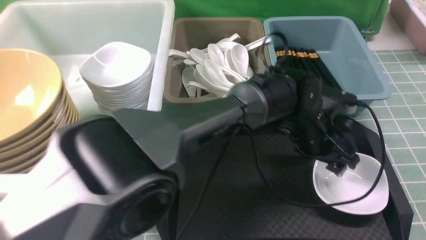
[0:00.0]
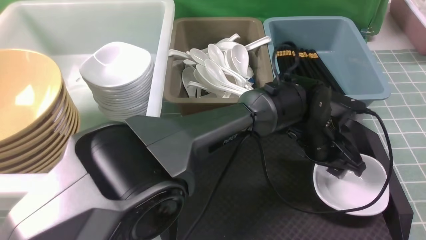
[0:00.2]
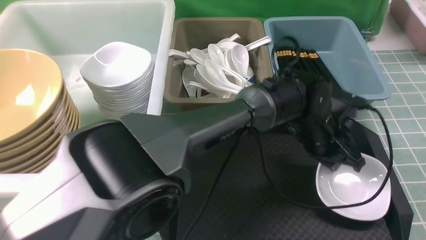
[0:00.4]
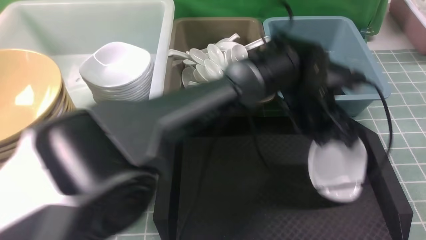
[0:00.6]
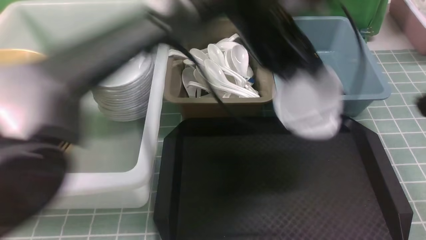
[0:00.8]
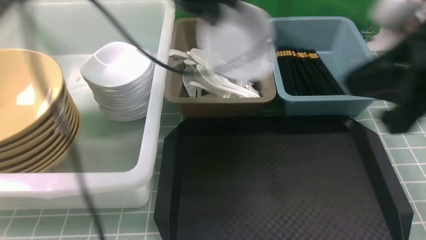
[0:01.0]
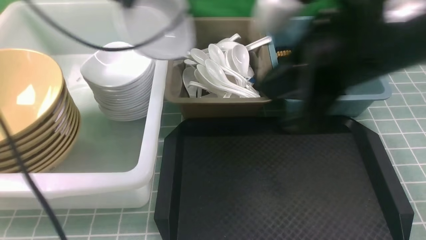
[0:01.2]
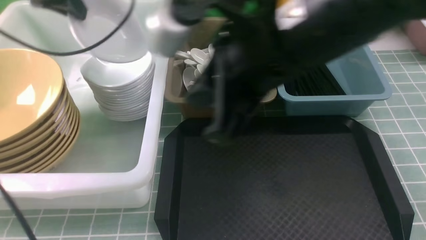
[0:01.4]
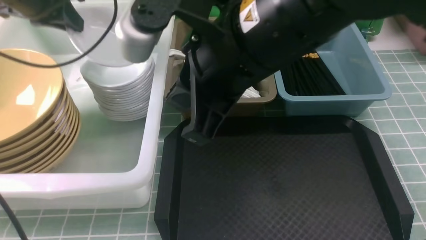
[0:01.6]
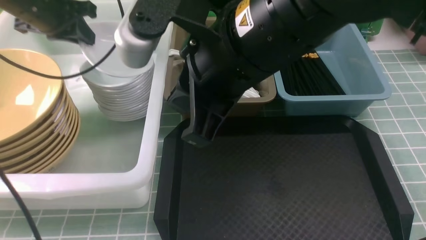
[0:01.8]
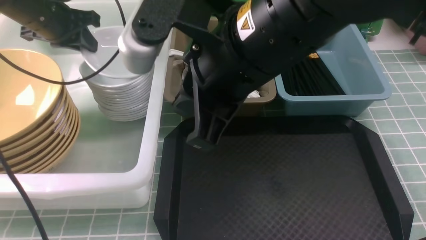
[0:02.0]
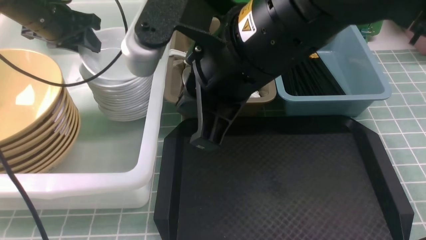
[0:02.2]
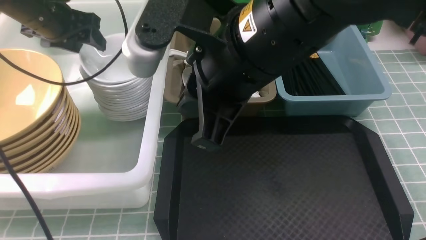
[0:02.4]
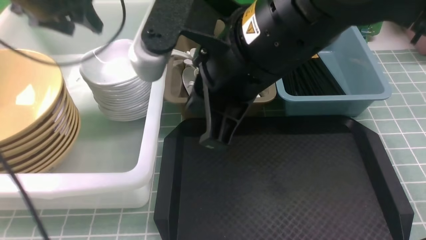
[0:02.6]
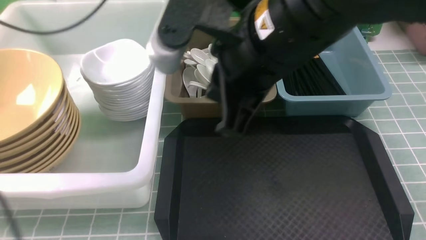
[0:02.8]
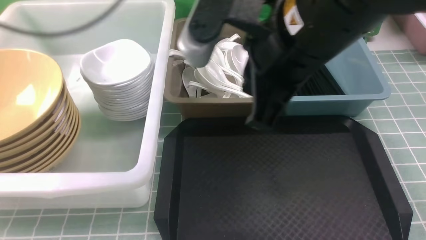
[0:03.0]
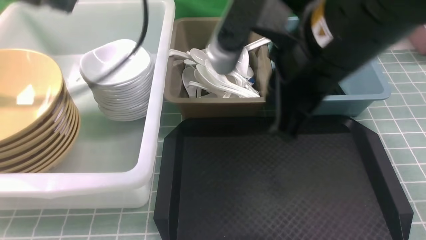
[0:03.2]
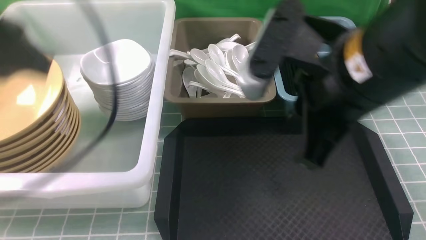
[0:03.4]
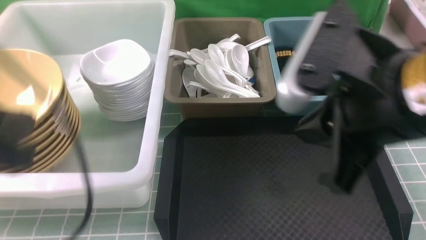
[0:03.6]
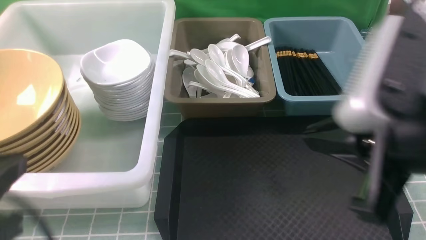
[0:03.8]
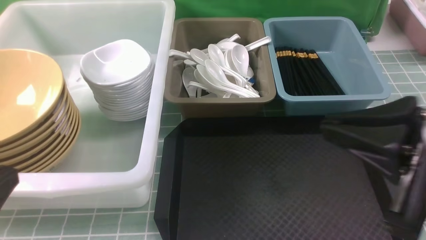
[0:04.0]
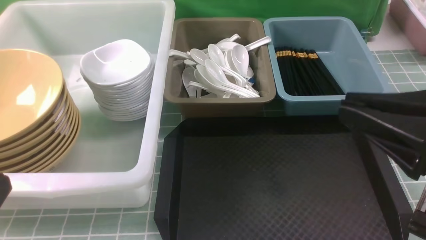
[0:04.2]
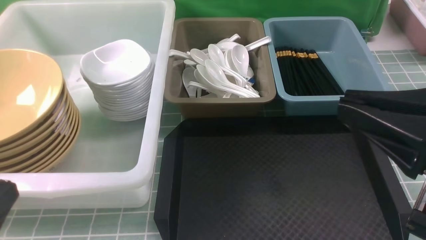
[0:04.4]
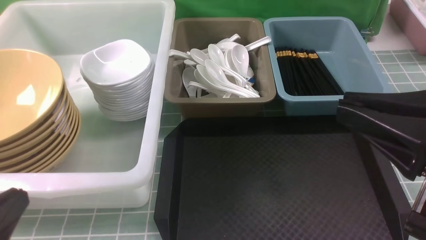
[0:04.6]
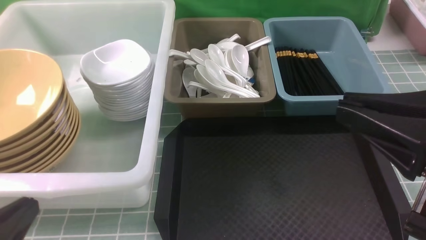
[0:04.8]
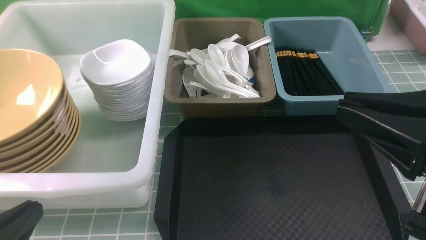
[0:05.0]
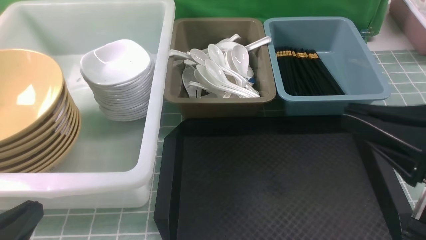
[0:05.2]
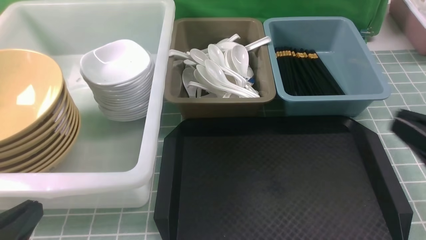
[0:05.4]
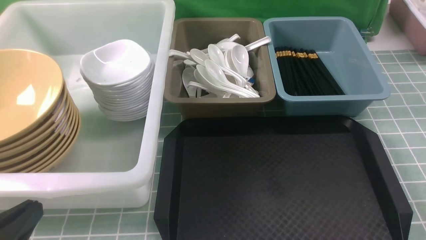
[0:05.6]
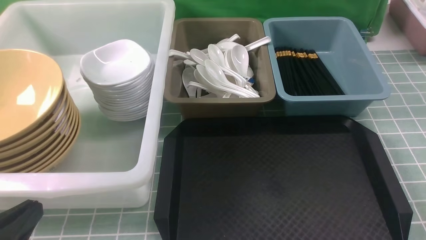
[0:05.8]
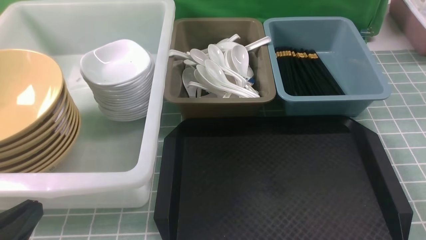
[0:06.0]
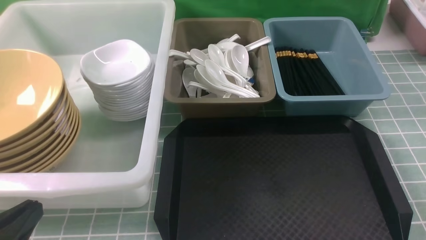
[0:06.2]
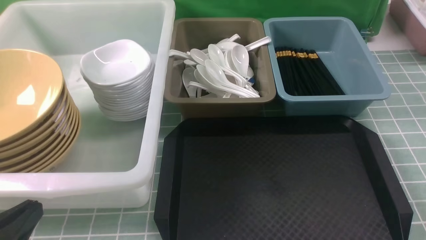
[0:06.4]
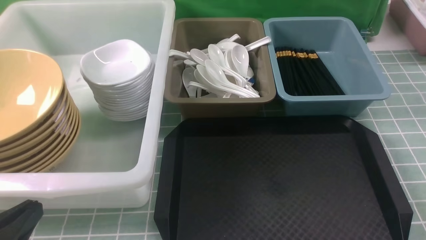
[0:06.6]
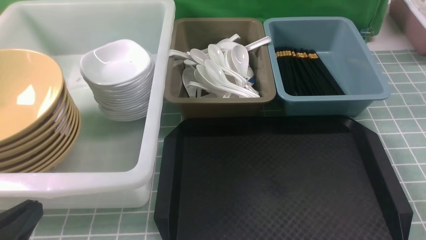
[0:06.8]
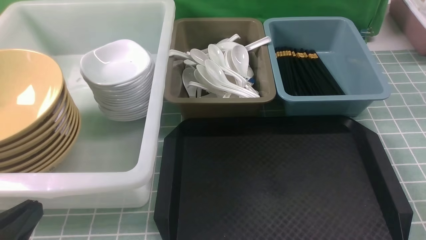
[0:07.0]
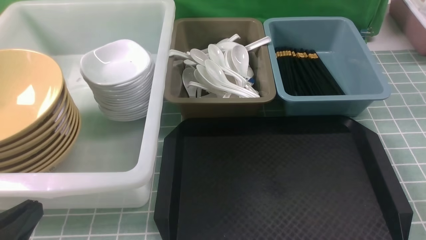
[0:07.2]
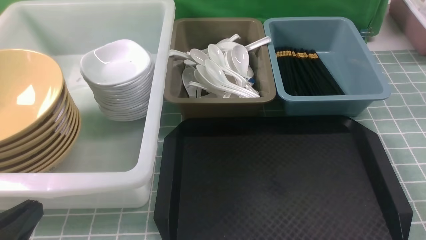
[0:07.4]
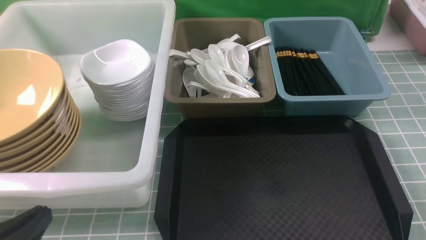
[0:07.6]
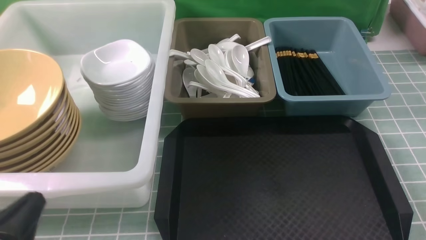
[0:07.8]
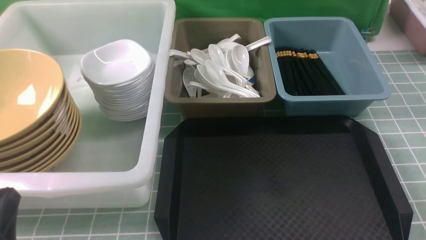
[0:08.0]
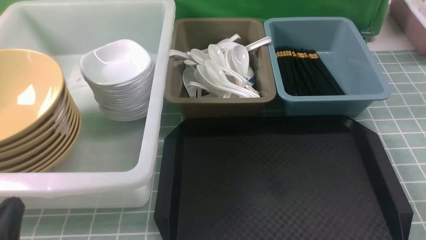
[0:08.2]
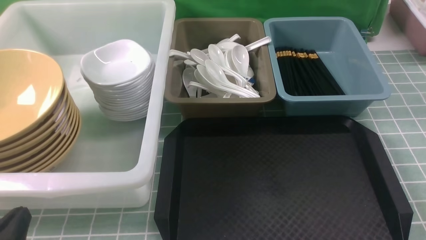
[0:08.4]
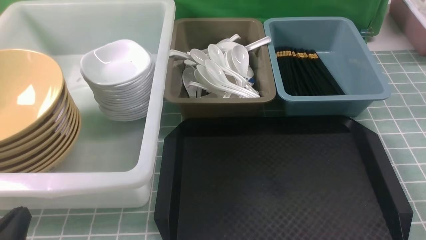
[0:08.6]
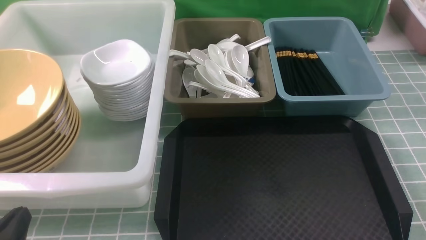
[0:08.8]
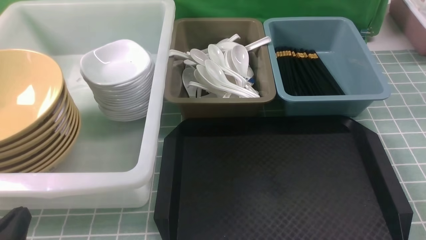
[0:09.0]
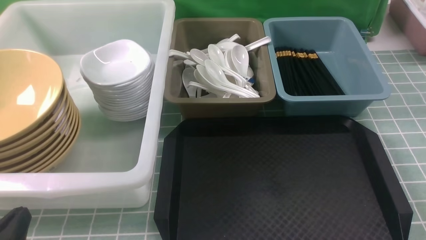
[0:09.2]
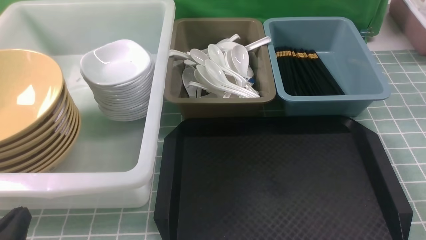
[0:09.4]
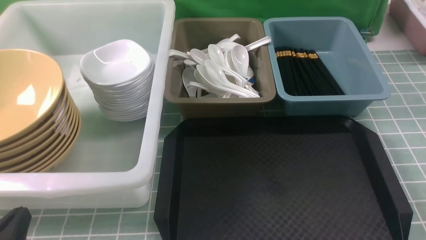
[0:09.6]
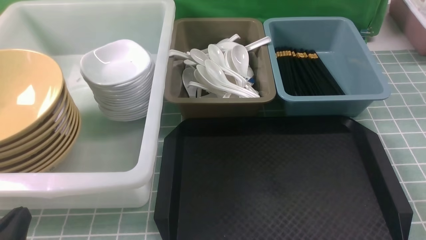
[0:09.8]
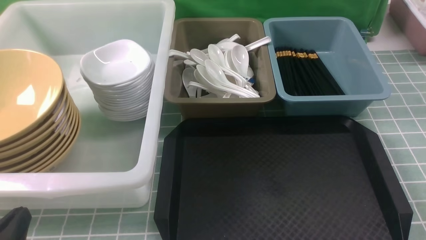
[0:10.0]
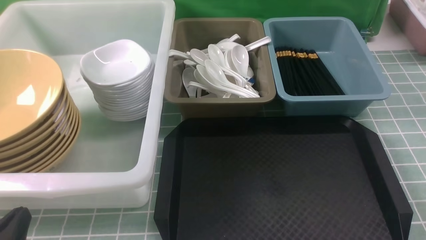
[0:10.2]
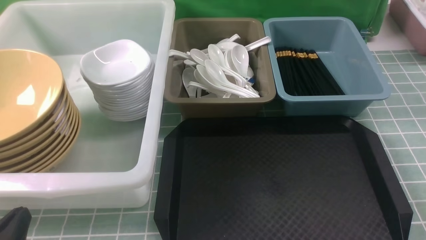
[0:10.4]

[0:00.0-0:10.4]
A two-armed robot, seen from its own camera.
Task of the whole recording: on blue table put chopsticks spoon bowls plates into blue grey white boxes.
Step, 0:00.8 to 0:02.8: use the left arm to put the plate into the large storage box on the left.
0:00.0 to 0:01.4: The right gripper shifts some 25 cm to the left and forward. Meanwhile the left gripper heads to the left and upward, covering roughly 40 cm, and closes its fingers.
0:01.4 to 0:03.0: The left gripper moves backward and upward, approximately 10 cm, and opens, then closes again.
0:03.0 to 0:04.4: The left gripper is displaced backward and downward by about 35 cm. The right gripper shifts approximately 15 cm backward and to the right.
0:04.4 to 0:06.0: The right gripper goes about 20 cm downward and to the right.
0:09.0 to 0:10.4: Both grippers stay put.
